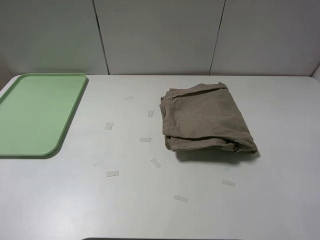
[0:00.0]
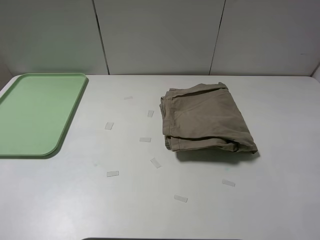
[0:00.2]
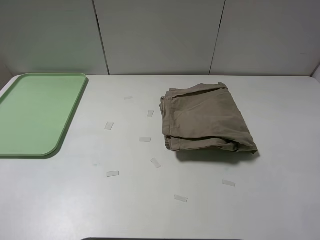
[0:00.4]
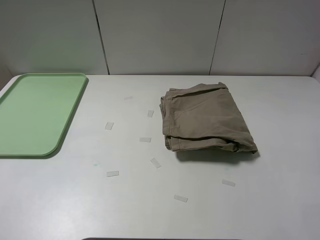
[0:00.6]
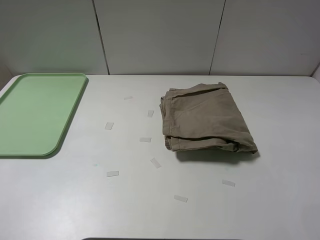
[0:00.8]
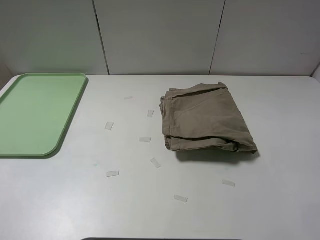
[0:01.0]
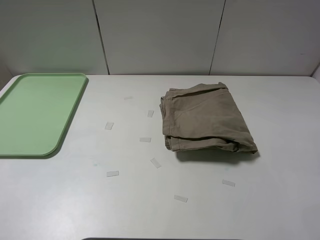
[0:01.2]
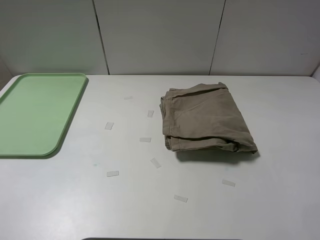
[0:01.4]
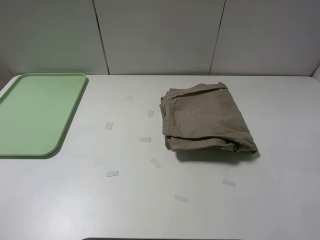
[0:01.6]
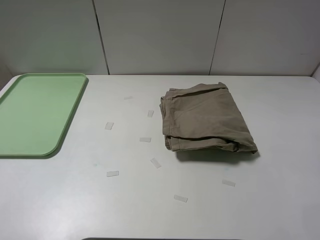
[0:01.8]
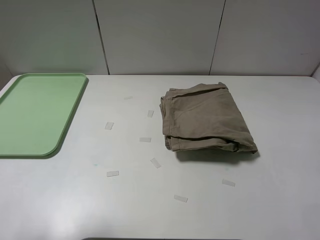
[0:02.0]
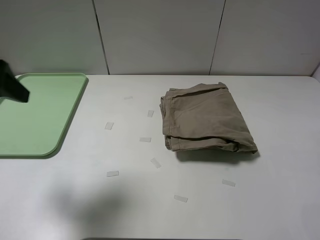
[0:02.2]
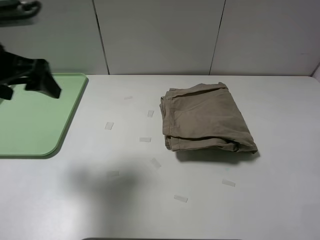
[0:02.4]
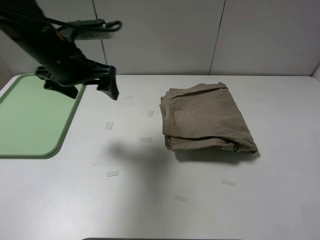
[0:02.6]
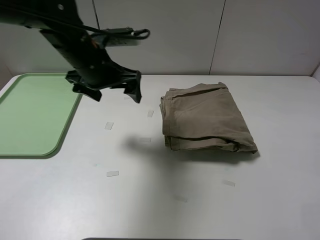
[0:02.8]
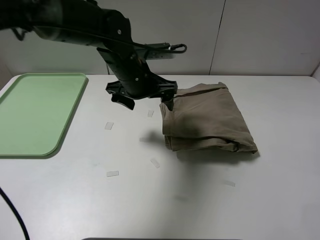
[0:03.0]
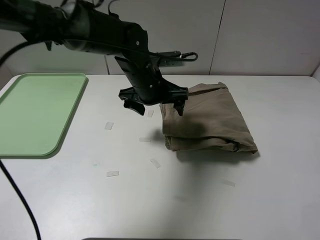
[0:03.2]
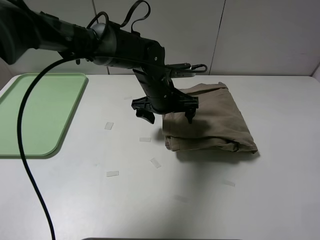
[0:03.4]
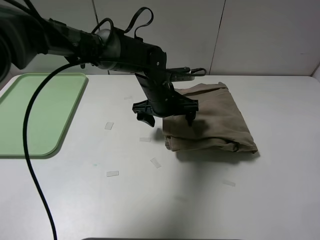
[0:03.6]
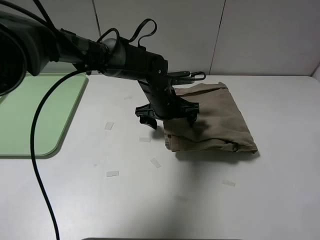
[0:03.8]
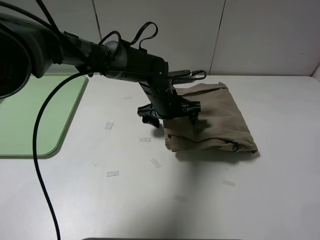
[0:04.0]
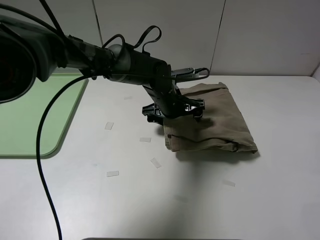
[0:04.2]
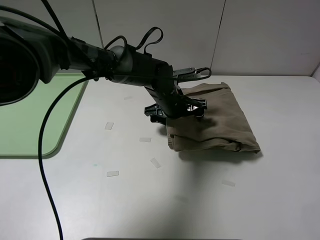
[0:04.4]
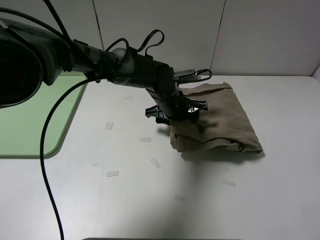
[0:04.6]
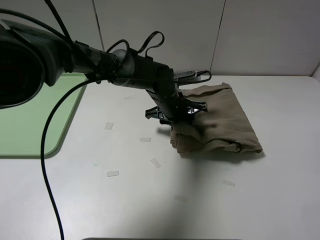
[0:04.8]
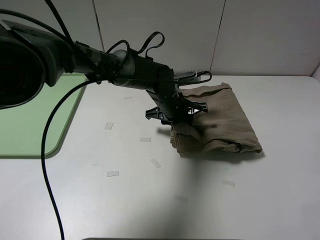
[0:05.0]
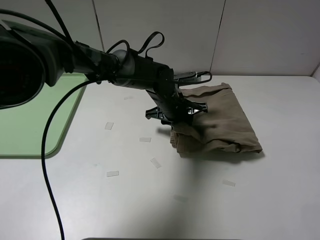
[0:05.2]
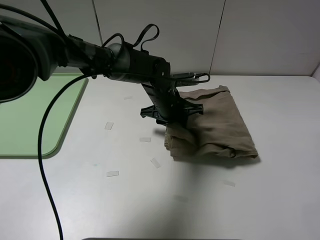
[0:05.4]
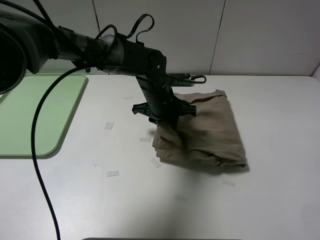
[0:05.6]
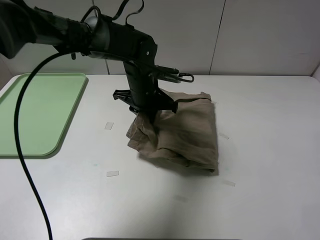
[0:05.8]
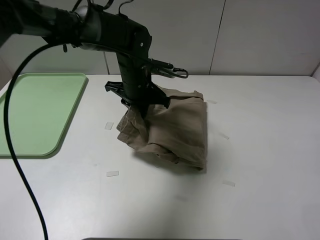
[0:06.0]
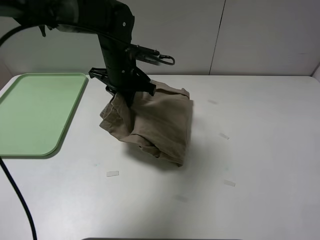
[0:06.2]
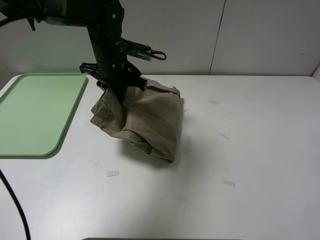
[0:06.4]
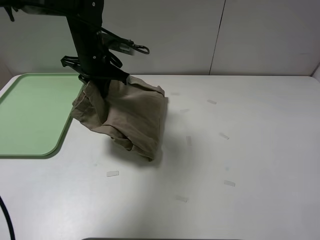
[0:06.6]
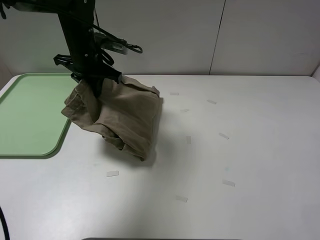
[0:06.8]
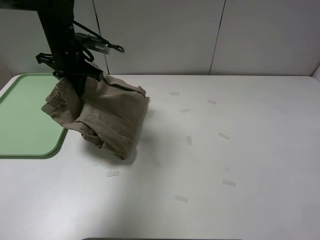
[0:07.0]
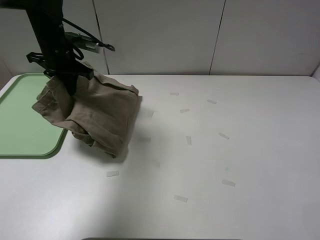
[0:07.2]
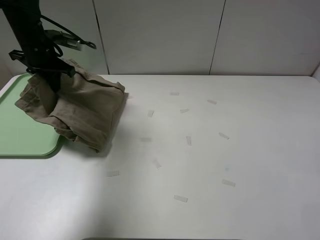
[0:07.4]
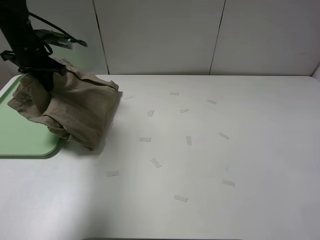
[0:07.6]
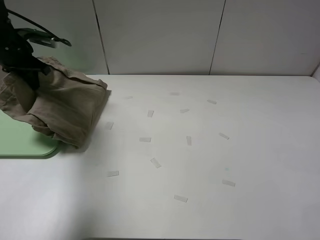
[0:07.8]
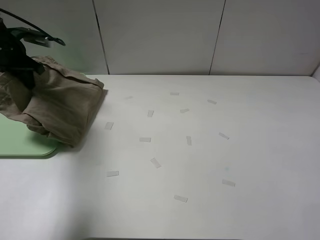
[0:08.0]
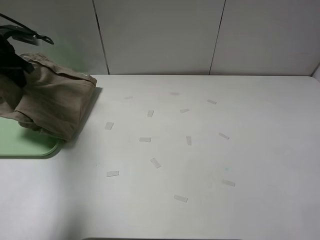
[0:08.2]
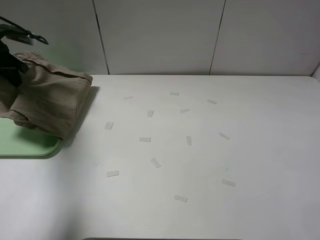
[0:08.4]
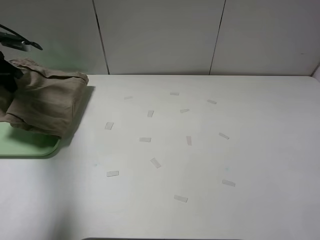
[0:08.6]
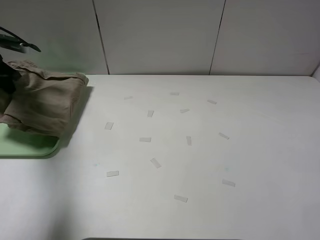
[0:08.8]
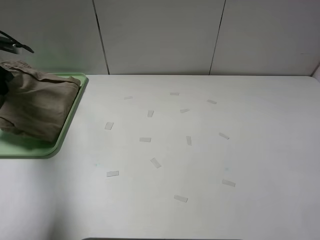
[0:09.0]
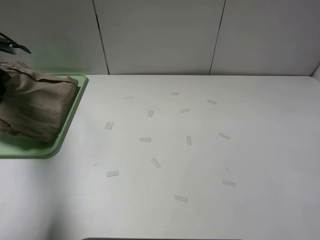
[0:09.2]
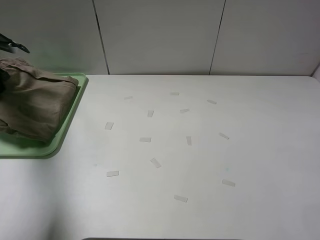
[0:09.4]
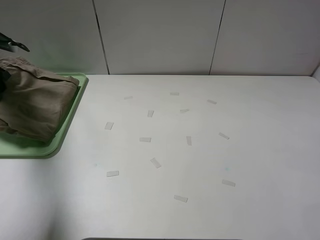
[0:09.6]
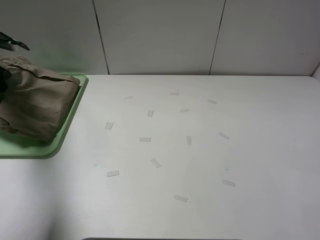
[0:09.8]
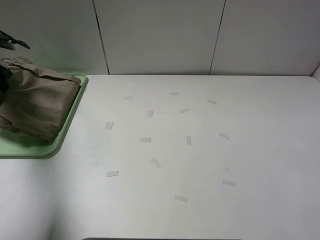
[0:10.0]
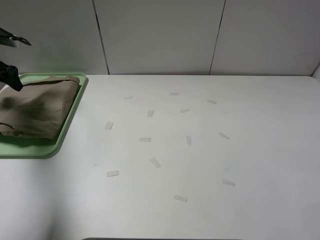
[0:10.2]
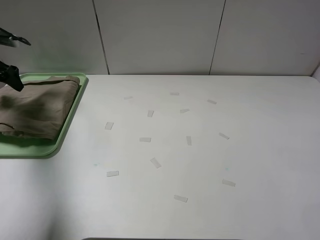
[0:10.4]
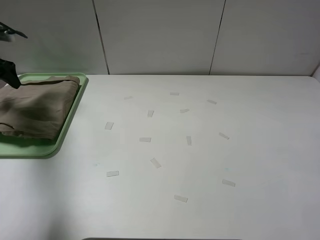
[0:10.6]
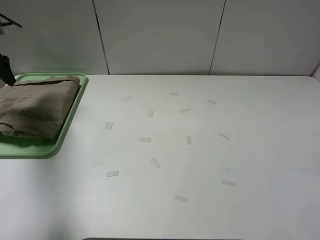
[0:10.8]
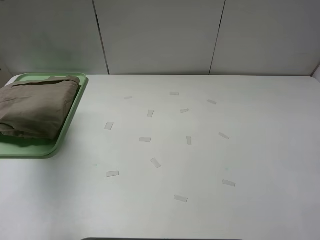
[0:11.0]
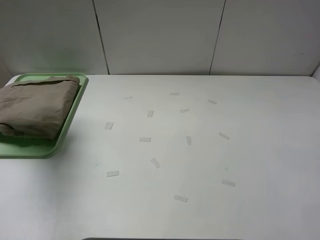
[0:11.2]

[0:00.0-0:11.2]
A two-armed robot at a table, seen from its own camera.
Task of the whole recording: fold the khaki jeans in half with two grippers, then fold them in half again, and use the left claw to place the folded fold khaki jeans on the tray.
Step, 0:00.0 to 0:04.8: Grasp the khaki trousers with the left gripper.
Step, 0:05.0 to 0:10.2: Place the folded khaki trousers on the green tray with the left gripper.
0:00.0 to 0:01.6: Both grippers stay put.
0:01.6 to 0:03.2: The left gripper travels forward and to the right by approximately 50 cm.
0:03.2 to 0:04.8: The left gripper moves downward, some 5 cm, and closes.
0:04.8 to 0:06.4: The left gripper heads to the left and upward, covering roughly 15 cm.
0:06.4 to 0:08.0: The left gripper is displaced to the left by roughly 25 cm.
0:08.0 to 0:09.6: The left gripper is displaced to the left by roughly 10 cm.
0:09.6 to 0:11.2: The left gripper shifts roughly 15 cm upward and backward, and opens.

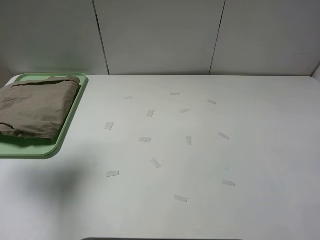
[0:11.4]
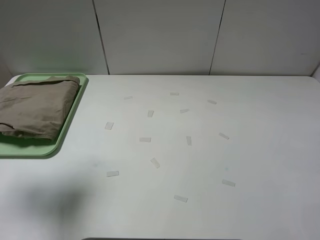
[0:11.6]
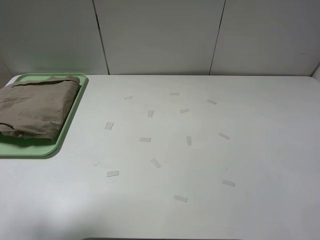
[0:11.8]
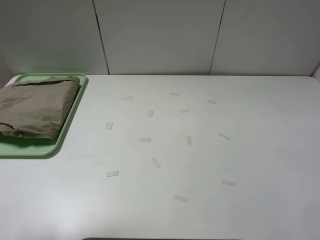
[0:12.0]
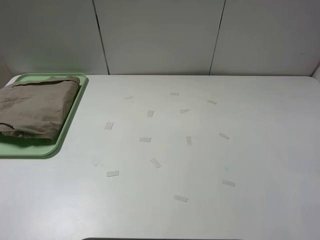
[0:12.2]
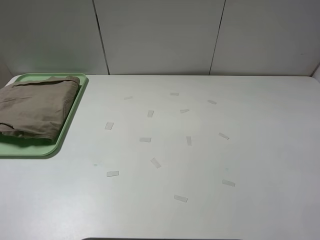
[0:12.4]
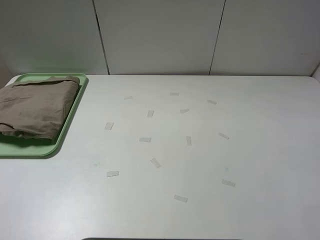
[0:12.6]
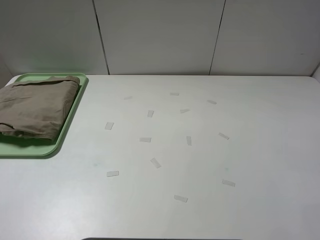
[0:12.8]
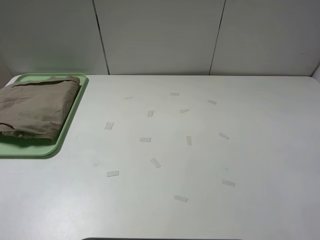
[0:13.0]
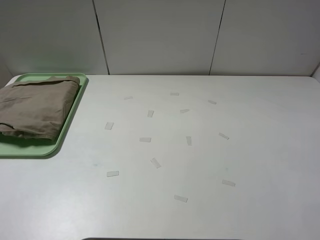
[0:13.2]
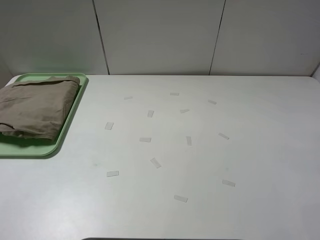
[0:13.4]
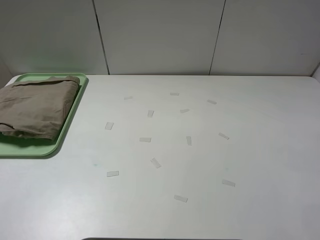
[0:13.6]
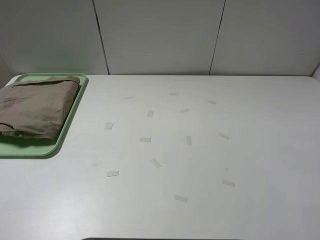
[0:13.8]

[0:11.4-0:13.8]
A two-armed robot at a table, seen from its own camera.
Task of the whole recording: fold the khaki jeans in half with two grippers, then fold them in half again, and use the left claw to place the folded fold khaki jeans on the tray.
0:11.4 to 0:12.6: The left gripper goes about 25 cm backward and to the right.

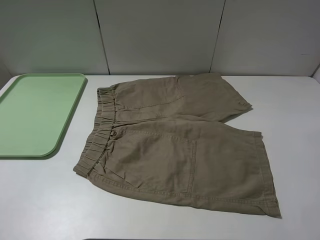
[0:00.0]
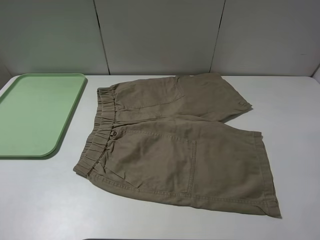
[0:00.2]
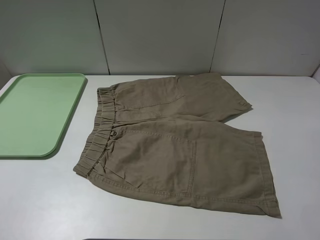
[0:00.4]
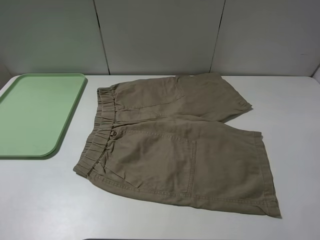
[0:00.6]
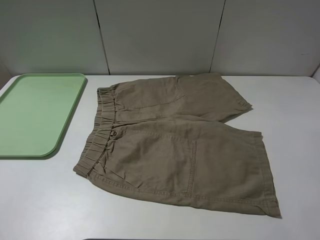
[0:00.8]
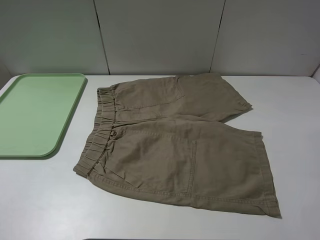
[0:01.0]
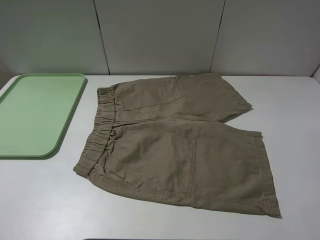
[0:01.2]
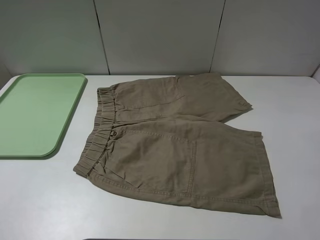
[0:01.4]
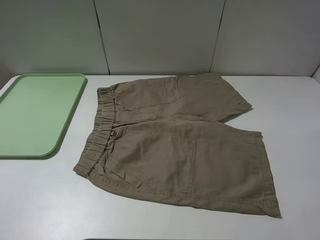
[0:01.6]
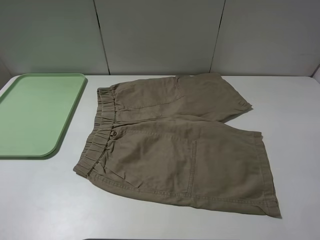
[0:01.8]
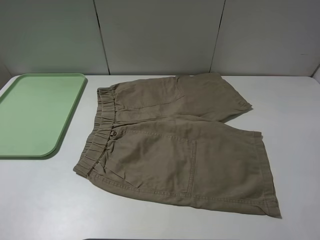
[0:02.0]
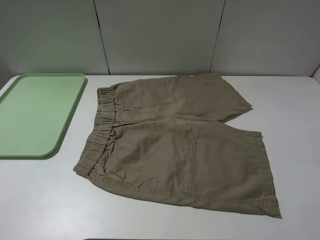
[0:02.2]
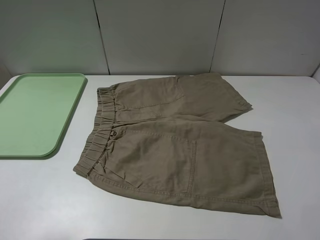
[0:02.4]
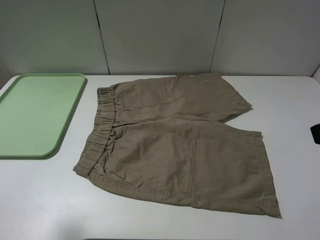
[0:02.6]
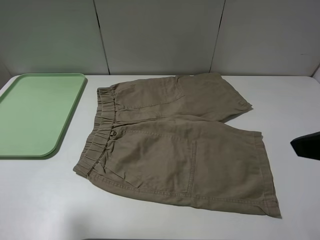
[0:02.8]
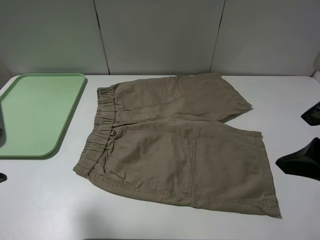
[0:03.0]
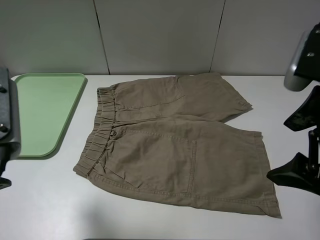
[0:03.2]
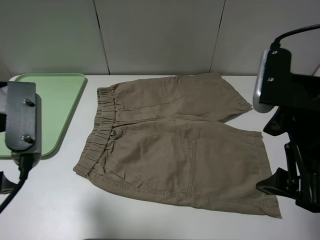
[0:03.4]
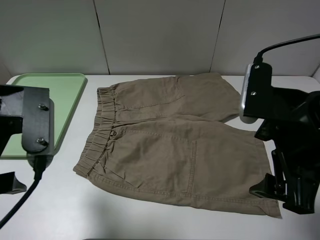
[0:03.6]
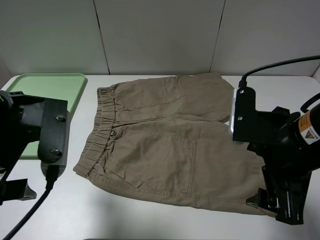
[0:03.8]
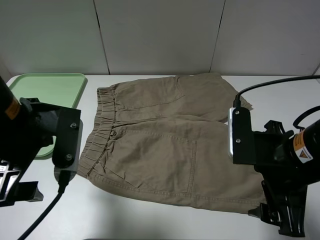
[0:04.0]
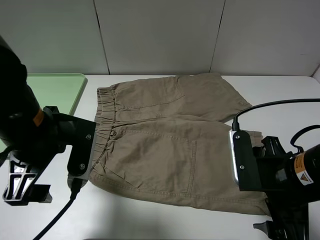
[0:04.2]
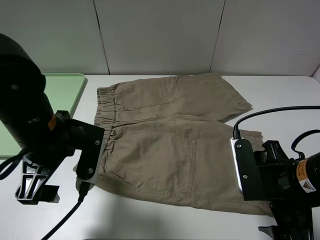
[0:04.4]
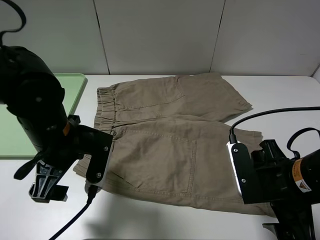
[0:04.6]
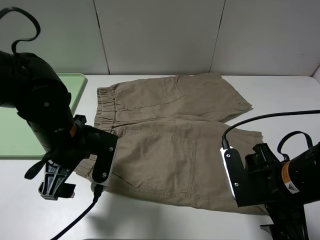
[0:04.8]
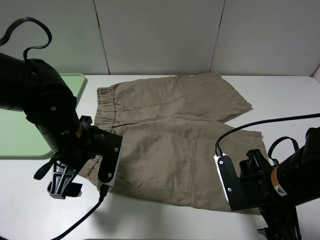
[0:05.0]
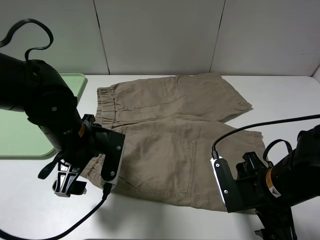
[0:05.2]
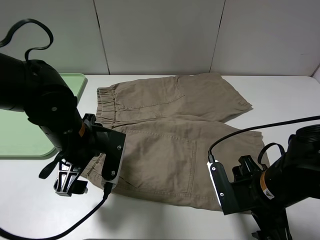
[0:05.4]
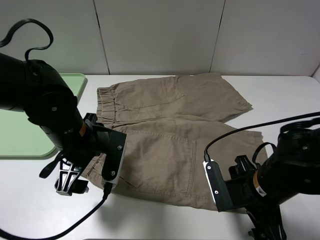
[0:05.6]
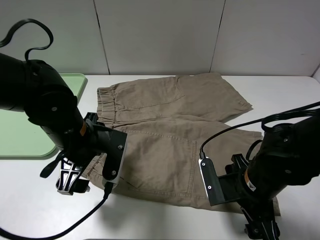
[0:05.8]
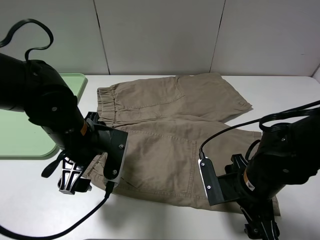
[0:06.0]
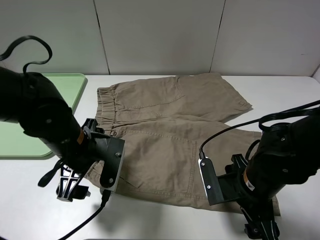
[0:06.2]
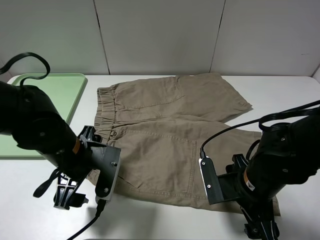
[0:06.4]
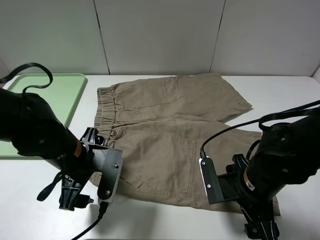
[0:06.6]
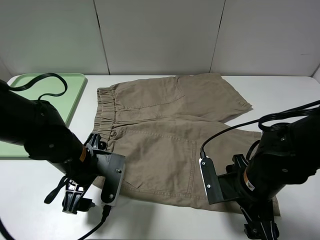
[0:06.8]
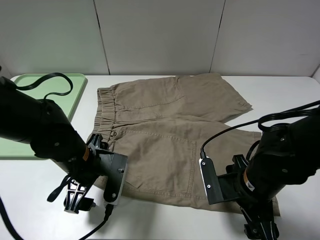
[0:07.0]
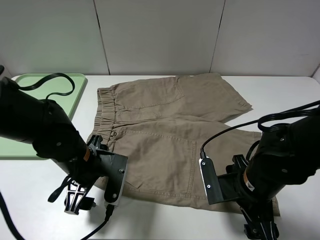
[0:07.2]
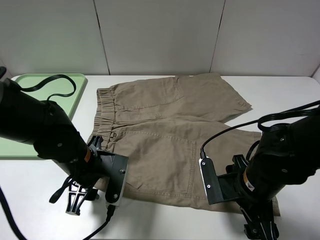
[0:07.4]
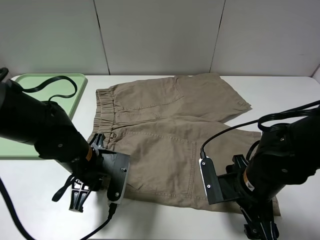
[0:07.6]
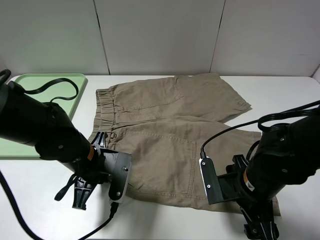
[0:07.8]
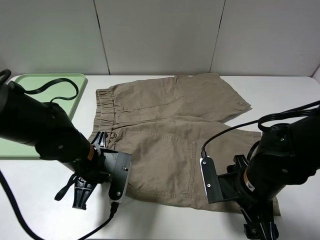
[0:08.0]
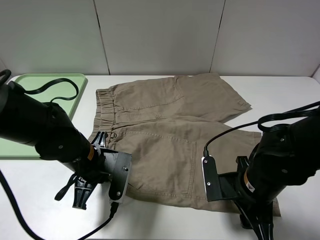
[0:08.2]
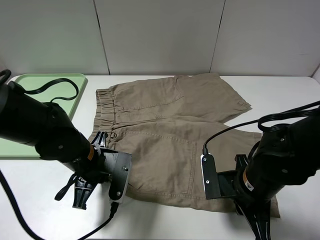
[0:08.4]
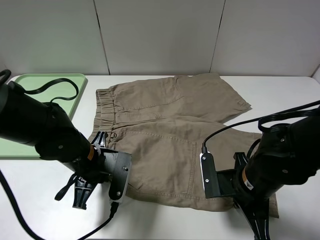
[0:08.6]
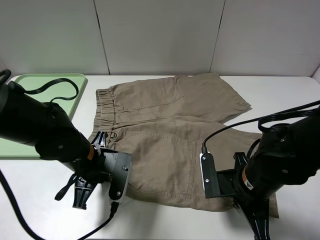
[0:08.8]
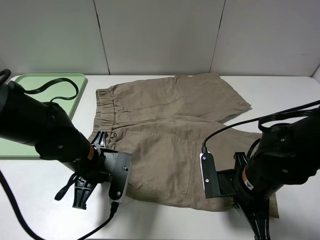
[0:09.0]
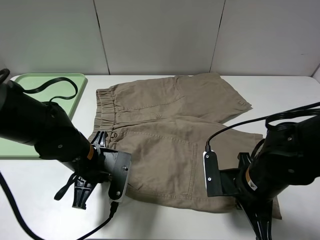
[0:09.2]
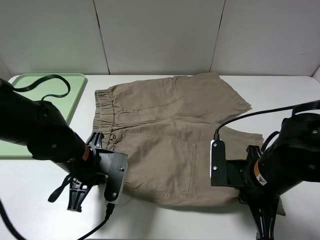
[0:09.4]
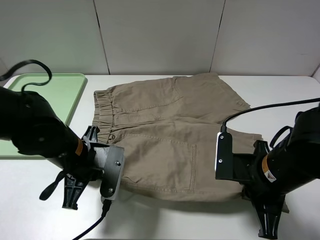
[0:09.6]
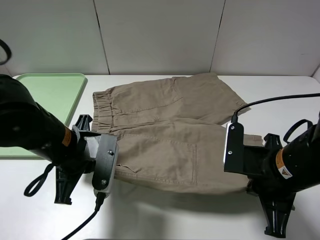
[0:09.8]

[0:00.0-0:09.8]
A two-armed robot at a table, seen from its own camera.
Task of the whole recording: fold the khaki jeans in half with two grippers, then fold them in half again, and use the left claw to place the folded fold khaki jeans on the tray.
Step, 0:00.0 to 0:07.8: Grasp the khaki trousers with the left gripper.
Step, 0:08.0 to 0:08.4: Grasp the khaki trousers with the right gripper.
0:00.0 to 0:01.4: Both grippers stay about where they are.
0:01.4 to 0:02.8: The left gripper is displaced forward and to the right by some 15 cm. Meanwhile the right gripper shifts some 10 cm forward.
0:02.8 to 0:04.2: The right gripper goes roughly 15 cm downward; the left gripper is displaced downward, to the right and forward by roughly 15 cm.
0:04.2 to 0:05.6: The grippers both shift downward by roughly 5 cm.
0:05.6 to 0:07.0: The left gripper is displaced downward by some 5 cm.
0:07.0 to 0:08.4: The right gripper closes up, while the left gripper closes its fingers.
0:08.4 to 0:09.8: The grippers both shift upward by roughly 10 cm.
